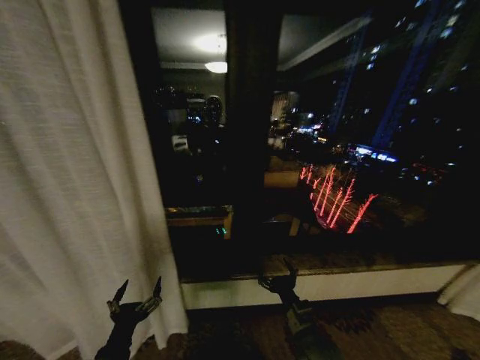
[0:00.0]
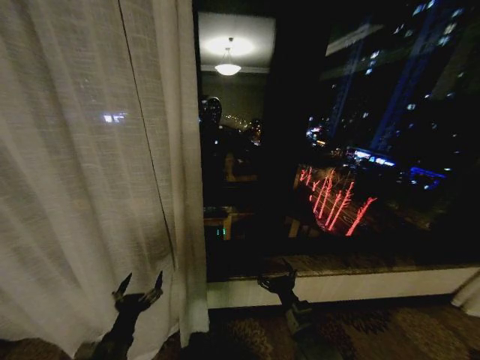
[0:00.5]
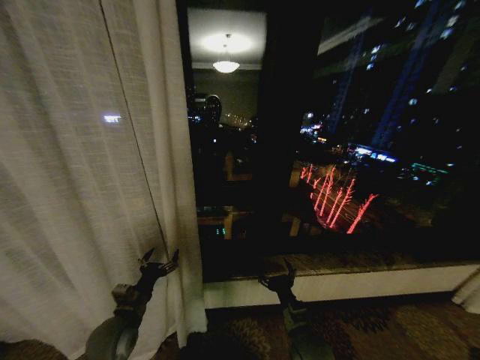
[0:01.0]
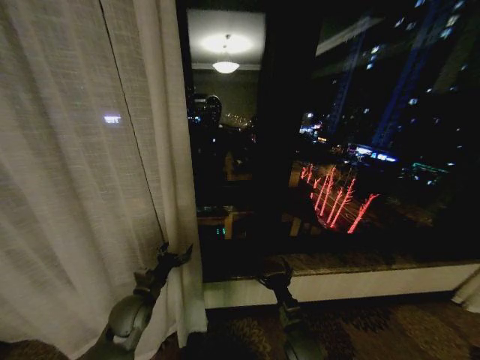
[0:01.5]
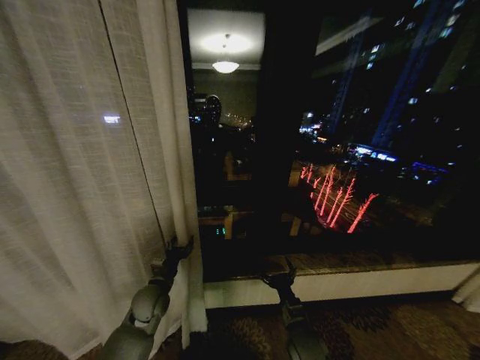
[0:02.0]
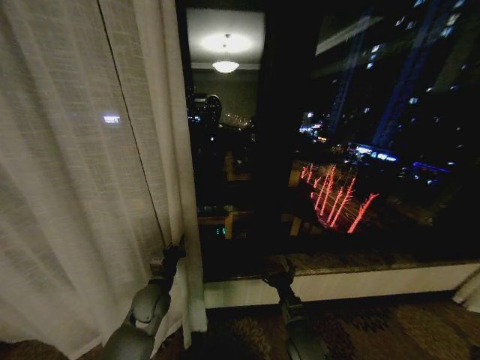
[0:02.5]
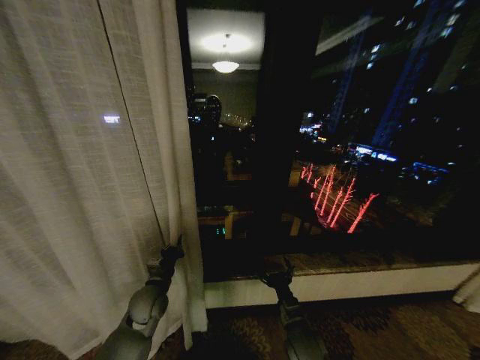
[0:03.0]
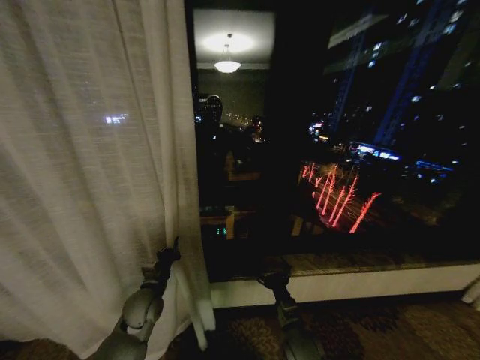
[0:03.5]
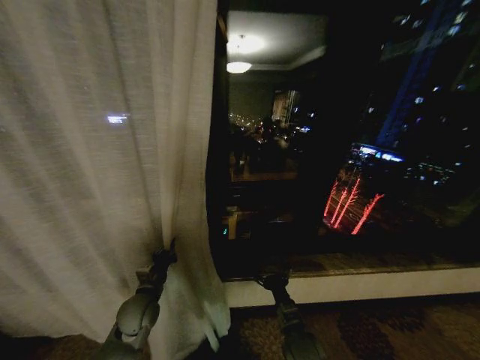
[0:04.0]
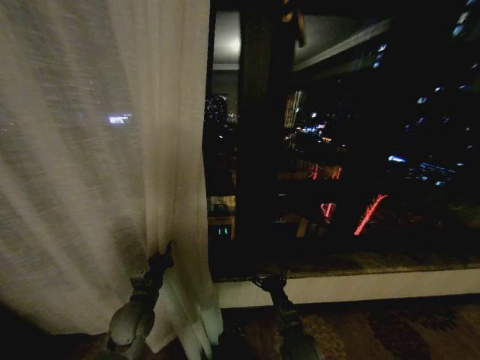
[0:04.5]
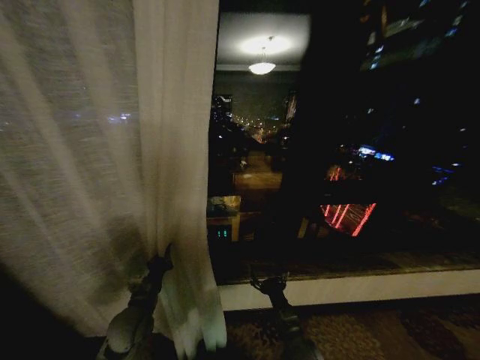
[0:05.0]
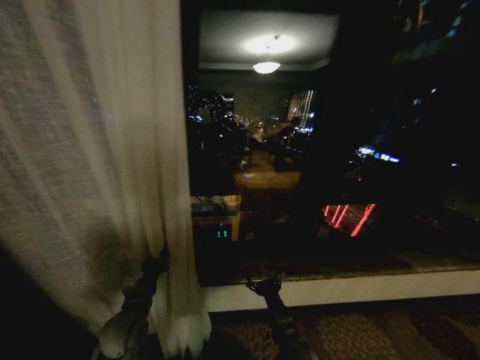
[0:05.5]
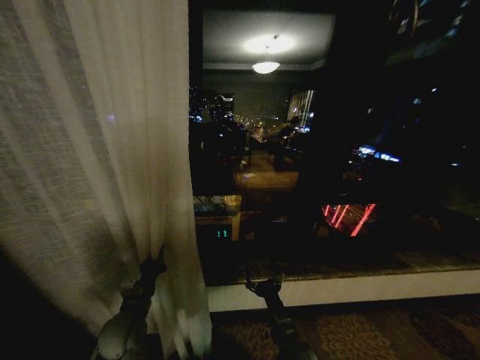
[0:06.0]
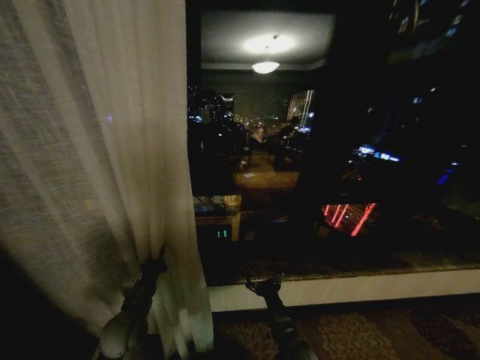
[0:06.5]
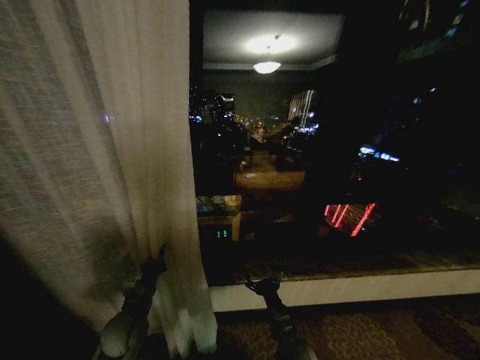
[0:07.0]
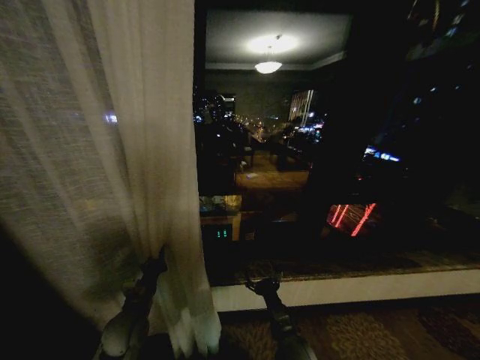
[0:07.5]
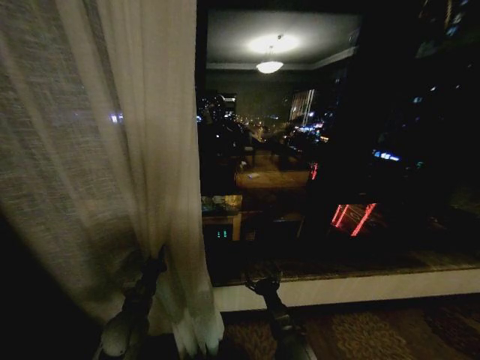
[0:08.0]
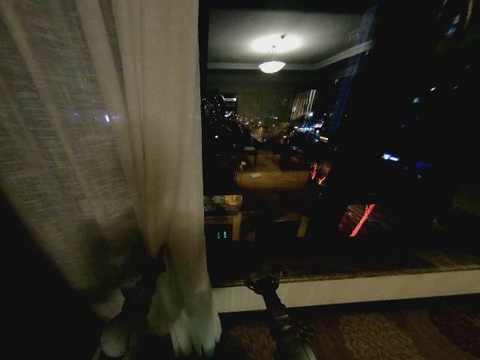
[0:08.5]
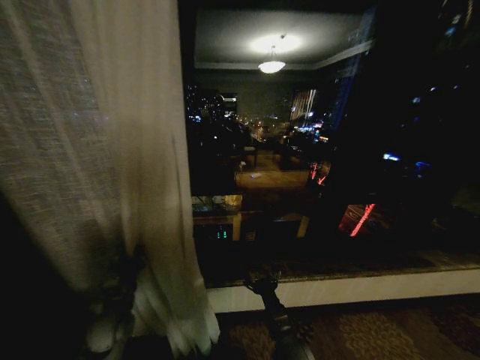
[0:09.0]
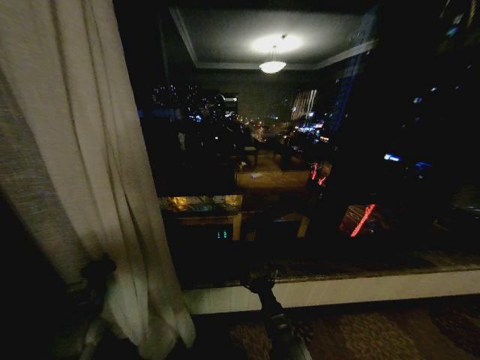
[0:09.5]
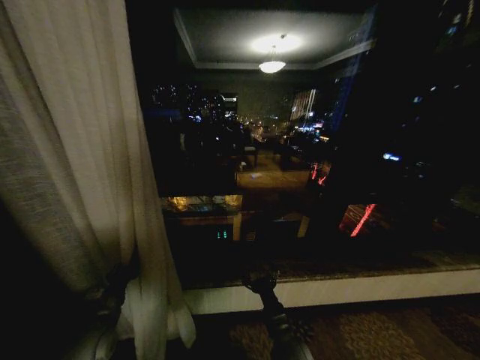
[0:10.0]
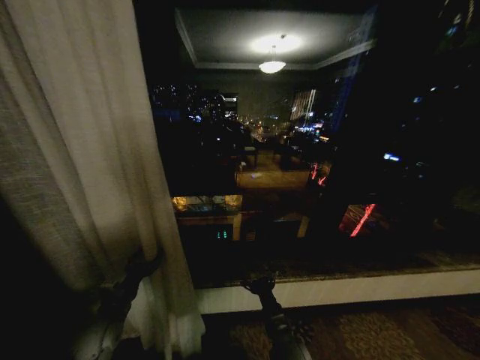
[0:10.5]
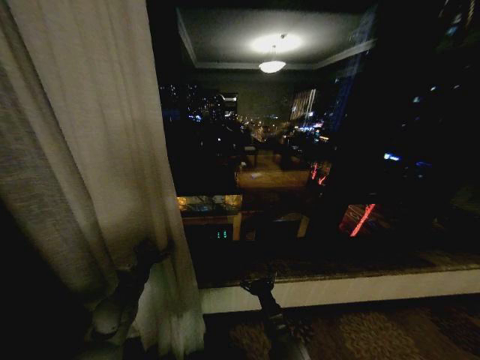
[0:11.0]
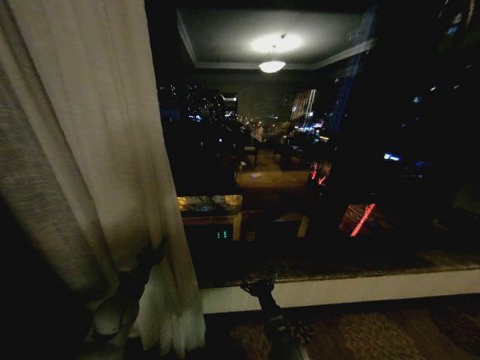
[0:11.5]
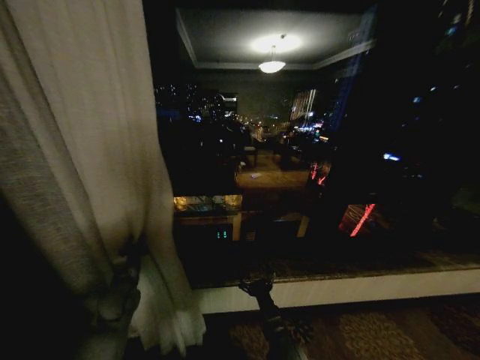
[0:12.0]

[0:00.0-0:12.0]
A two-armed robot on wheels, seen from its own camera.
Task of the whole recording: Open the curtains by pulling them apart, changing their state from closed to fully open.
0:00.0 to 0:02.0: The right gripper is displaced downward by roughly 5 cm; the left gripper shifts approximately 25 cm forward.
0:02.0 to 0:04.0: The left gripper closes up.
0:06.0 to 0:08.0: Neither gripper changes place.
0:08.0 to 0:10.0: The left gripper travels to the left by about 5 cm.
0:10.0 to 0:12.0: The left gripper is displaced forward by about 10 cm, and opens, then closes again.

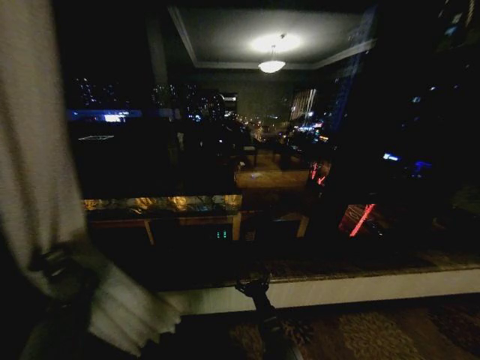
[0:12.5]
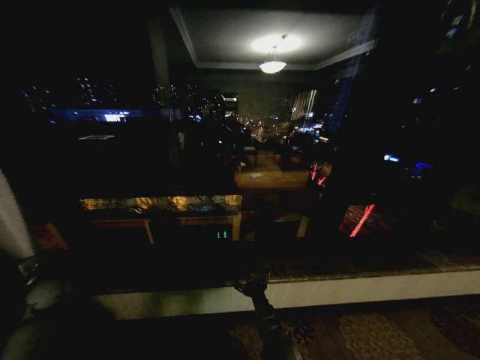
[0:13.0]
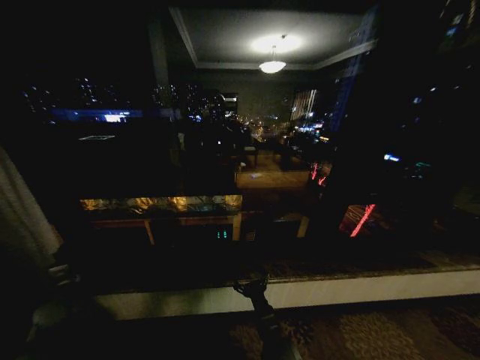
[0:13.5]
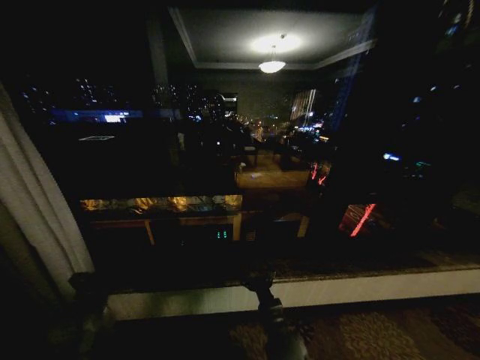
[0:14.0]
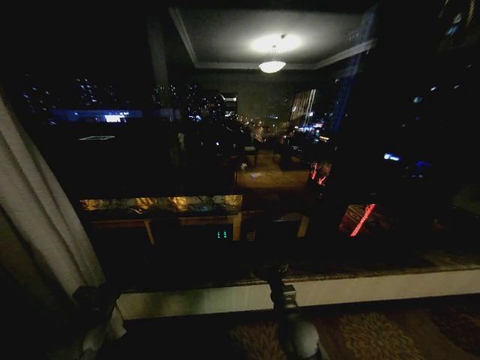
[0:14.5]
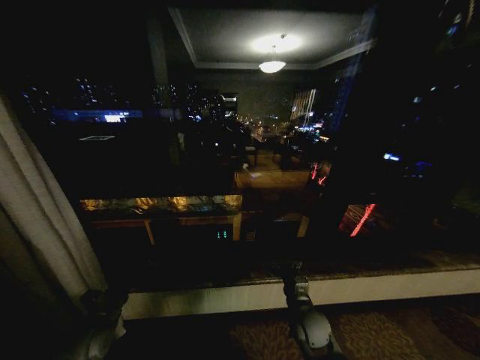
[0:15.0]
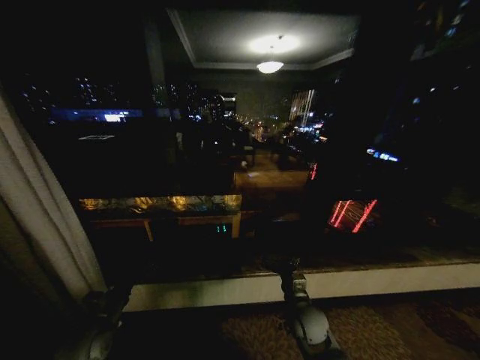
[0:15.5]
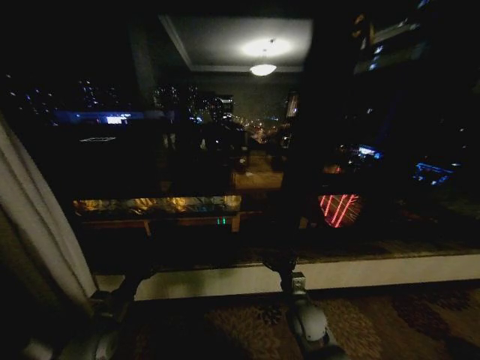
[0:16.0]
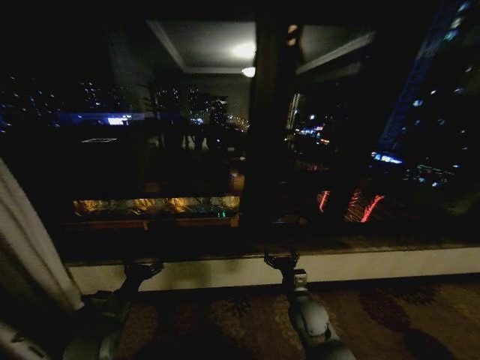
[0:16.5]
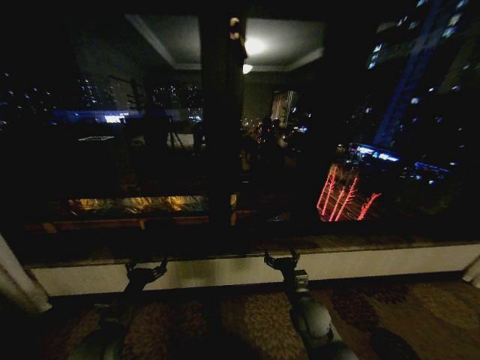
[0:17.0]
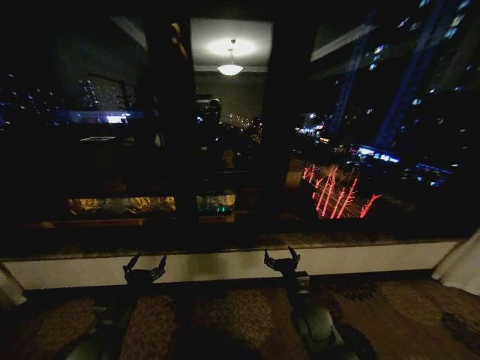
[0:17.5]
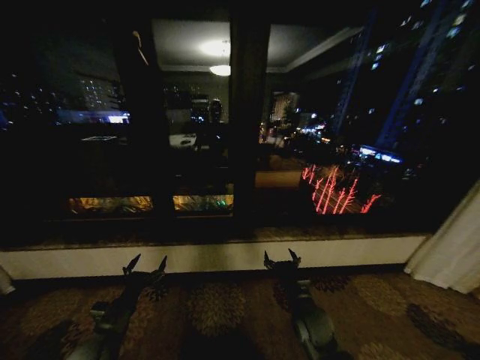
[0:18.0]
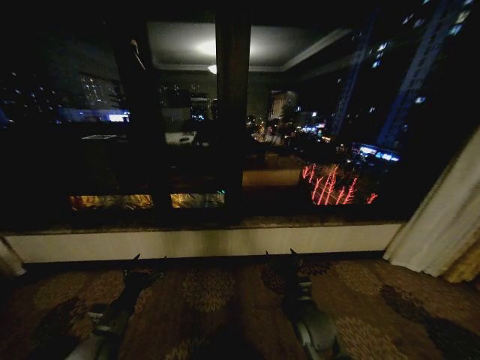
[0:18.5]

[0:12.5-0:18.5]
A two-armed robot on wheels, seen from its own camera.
Task of the whole recording: Open the curtains by pulling them apart, changing their state from closed to fully open.
0:12.5 to 0:14.5: The left gripper goes approximately 15 cm backward and to the right, and opens up. Meanwhile the right gripper shifts by approximately 5 cm.
0:14.5 to 0:16.5: The right gripper ends up about 5 cm from where it was.

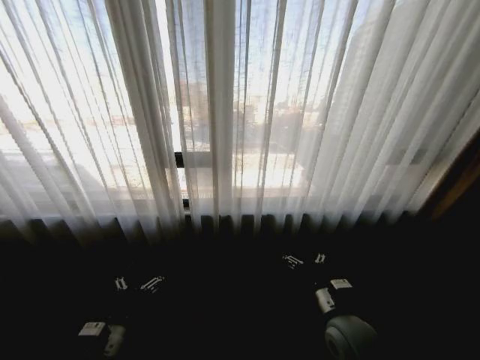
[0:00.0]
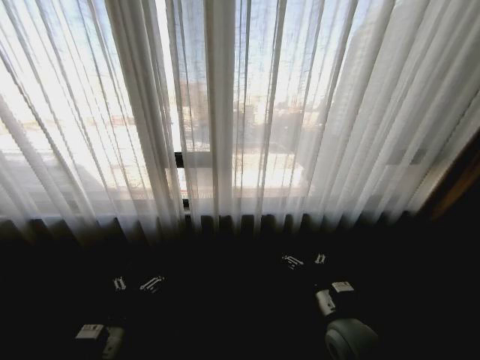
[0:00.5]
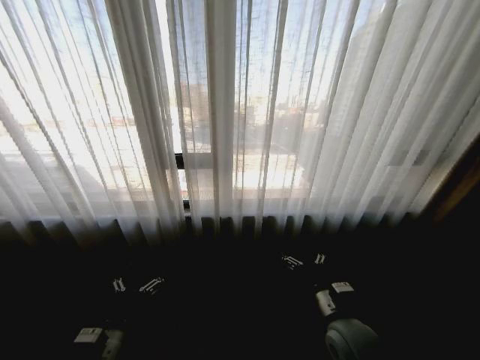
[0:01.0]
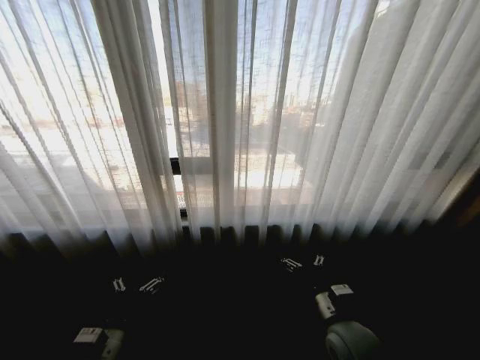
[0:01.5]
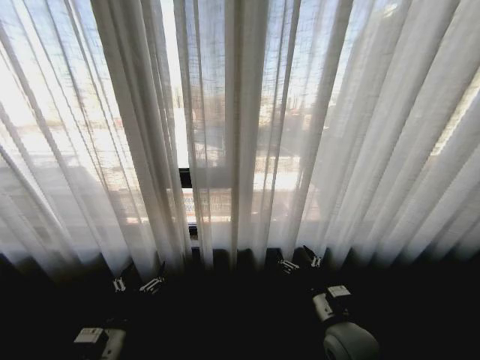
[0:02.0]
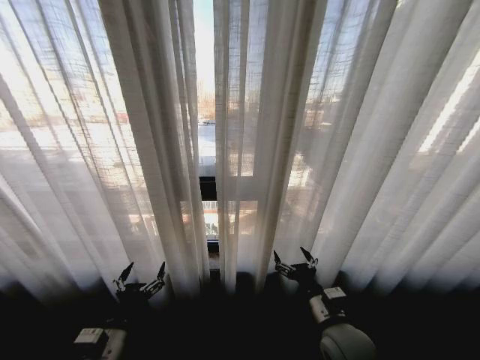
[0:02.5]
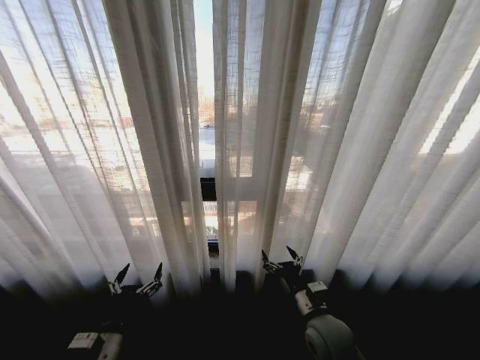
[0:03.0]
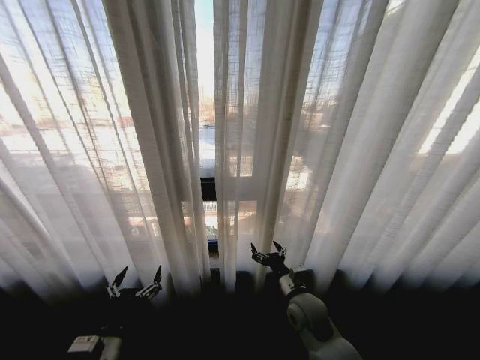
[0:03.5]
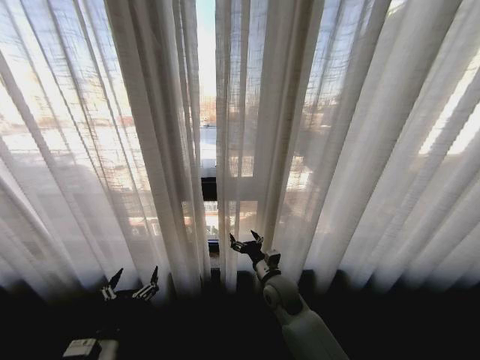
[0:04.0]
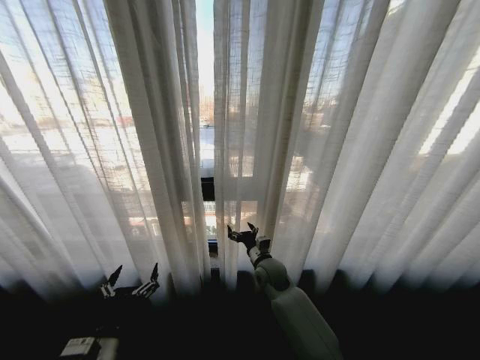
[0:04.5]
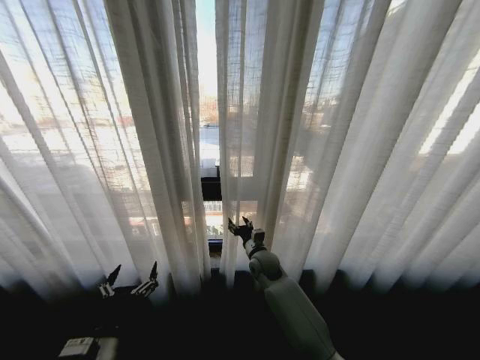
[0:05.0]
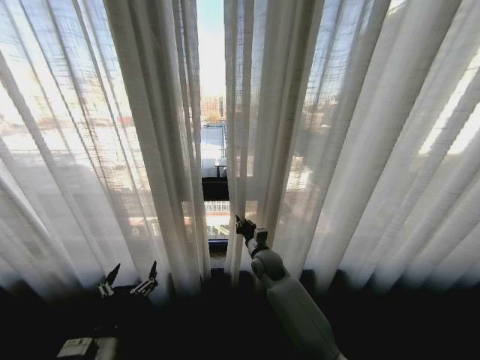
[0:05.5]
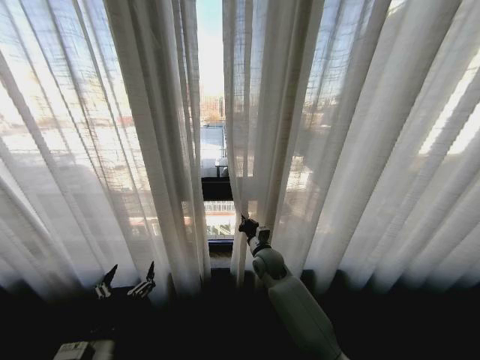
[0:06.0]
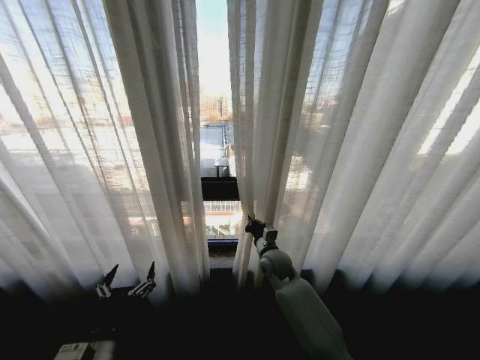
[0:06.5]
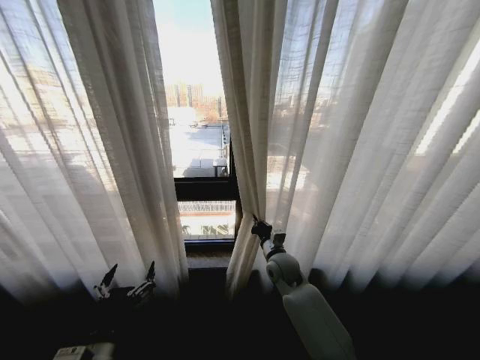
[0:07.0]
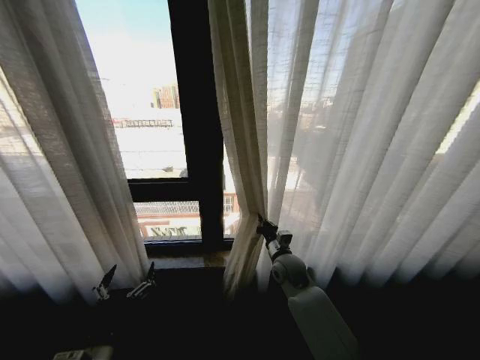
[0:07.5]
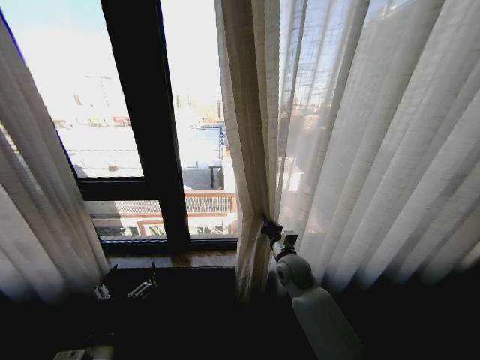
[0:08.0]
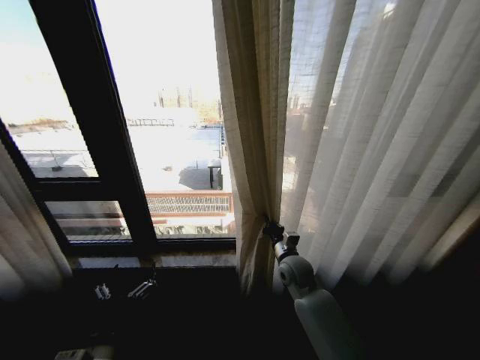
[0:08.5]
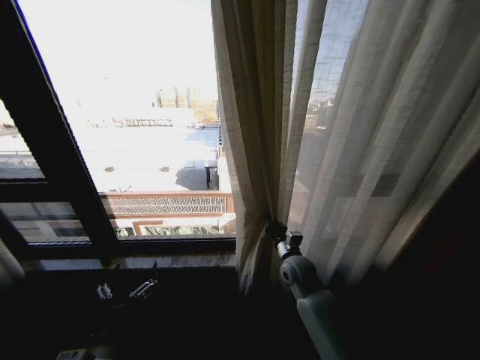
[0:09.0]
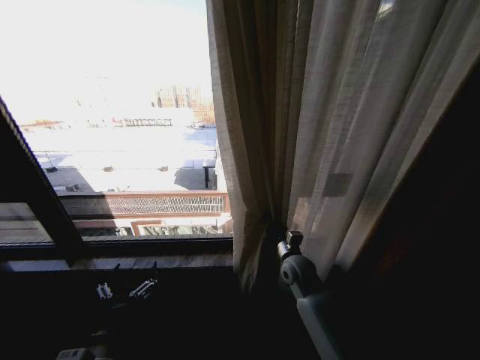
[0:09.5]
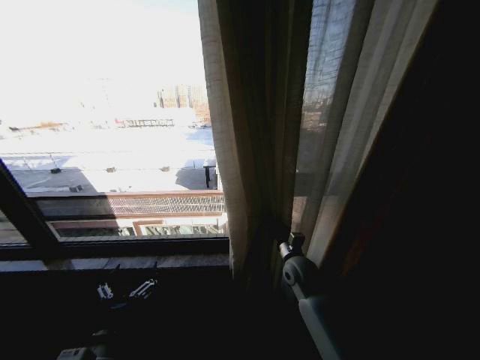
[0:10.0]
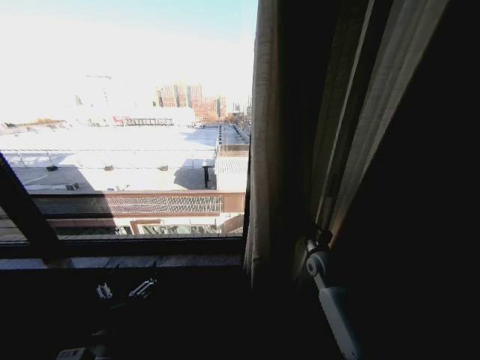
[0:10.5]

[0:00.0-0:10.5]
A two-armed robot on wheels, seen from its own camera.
Task of the whole recording: Open the curtains by pulling them apart, changing their state from closed to fully open.
0:02.0 to 0:04.0: The right gripper heads forward and to the left, covering some 15 cm.
0:04.0 to 0:06.5: The right gripper shifts about 10 cm forward, and closes.
0:06.5 to 0:08.5: The right gripper shifts roughly 5 cm to the right.
0:08.5 to 0:10.5: The right gripper heads to the right, covering about 10 cm.
